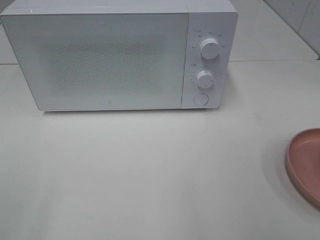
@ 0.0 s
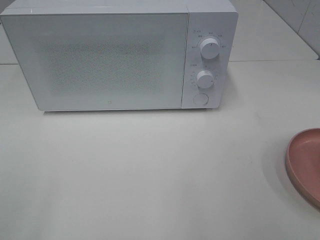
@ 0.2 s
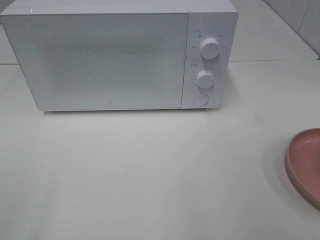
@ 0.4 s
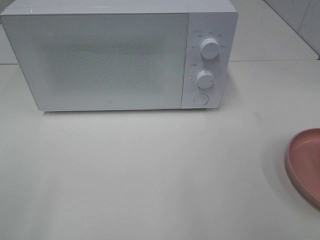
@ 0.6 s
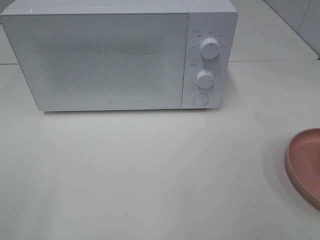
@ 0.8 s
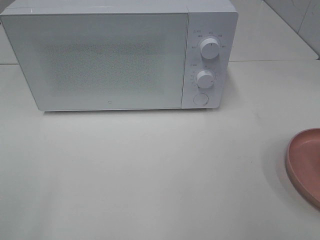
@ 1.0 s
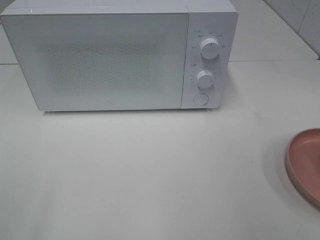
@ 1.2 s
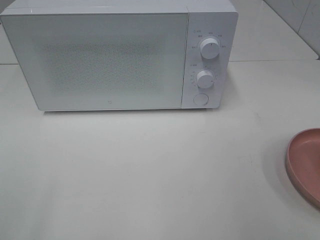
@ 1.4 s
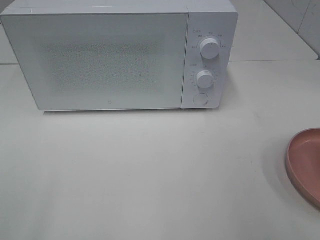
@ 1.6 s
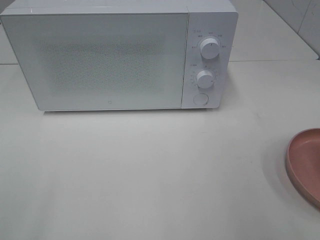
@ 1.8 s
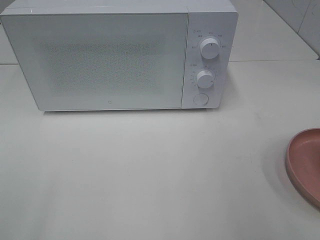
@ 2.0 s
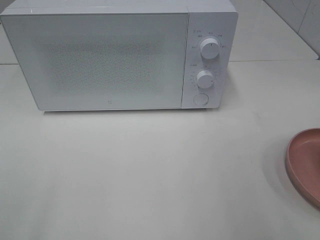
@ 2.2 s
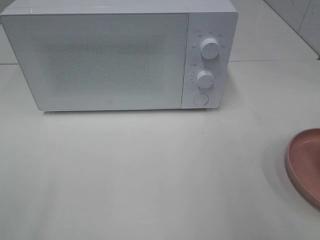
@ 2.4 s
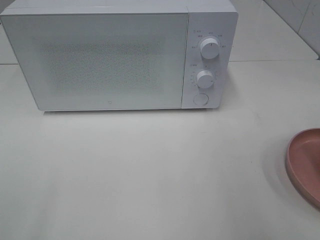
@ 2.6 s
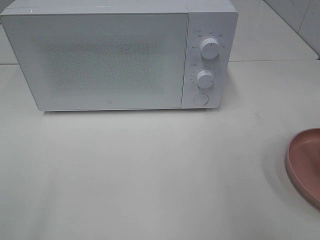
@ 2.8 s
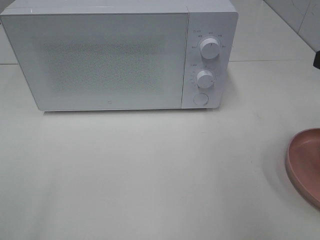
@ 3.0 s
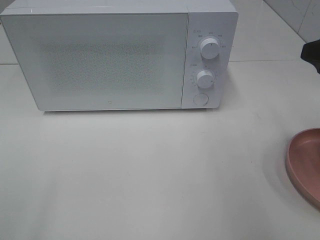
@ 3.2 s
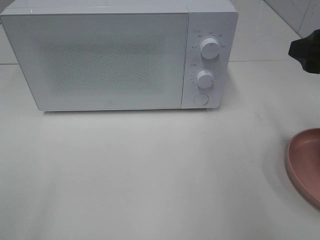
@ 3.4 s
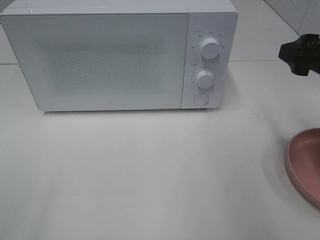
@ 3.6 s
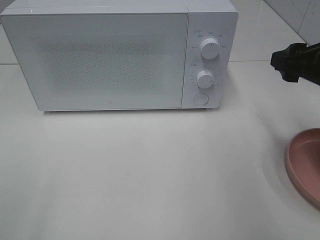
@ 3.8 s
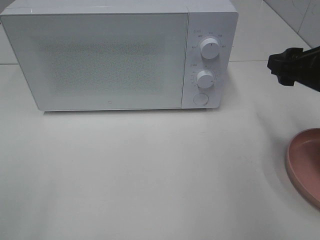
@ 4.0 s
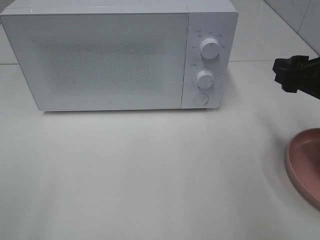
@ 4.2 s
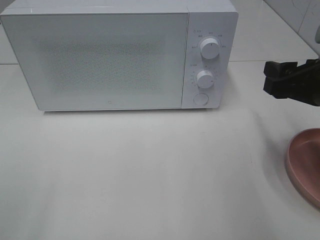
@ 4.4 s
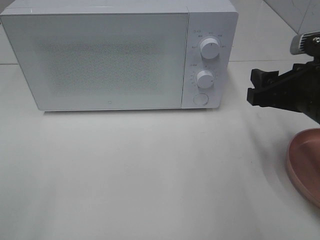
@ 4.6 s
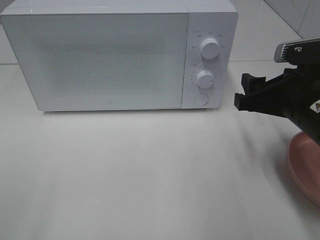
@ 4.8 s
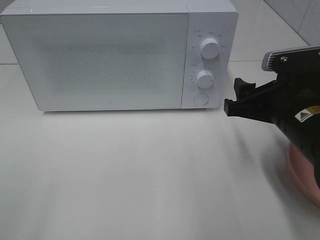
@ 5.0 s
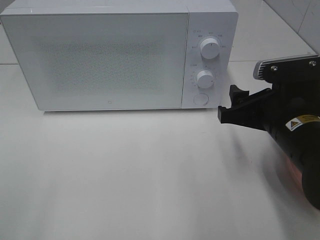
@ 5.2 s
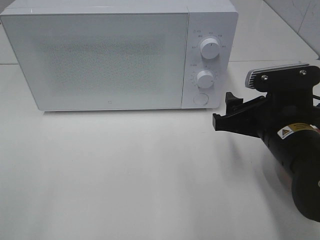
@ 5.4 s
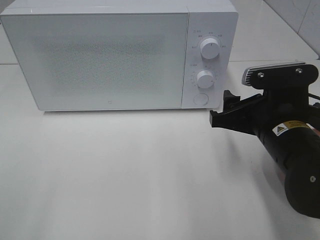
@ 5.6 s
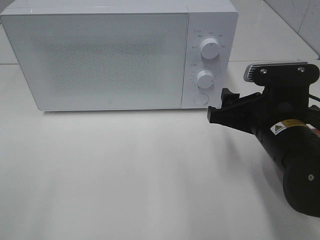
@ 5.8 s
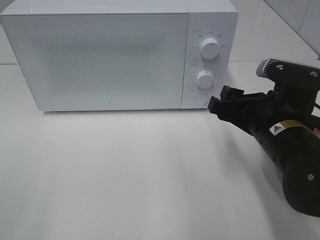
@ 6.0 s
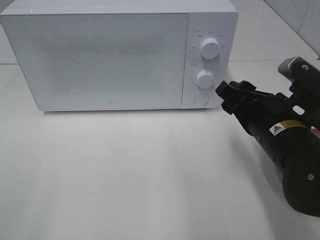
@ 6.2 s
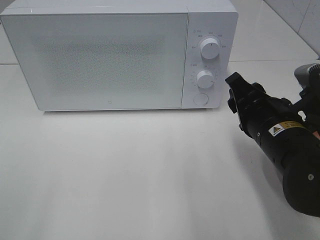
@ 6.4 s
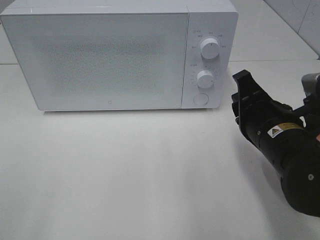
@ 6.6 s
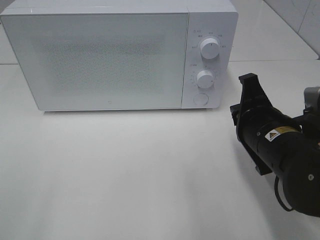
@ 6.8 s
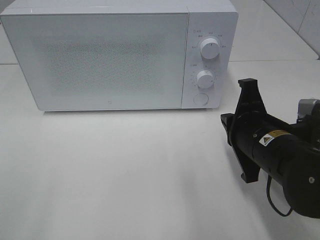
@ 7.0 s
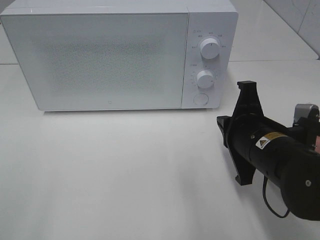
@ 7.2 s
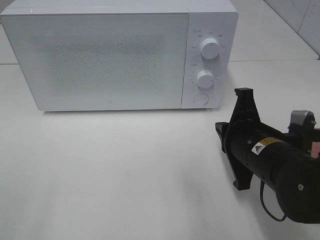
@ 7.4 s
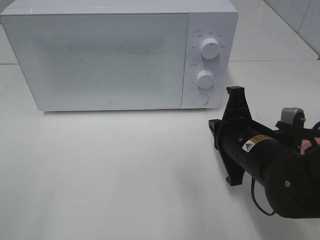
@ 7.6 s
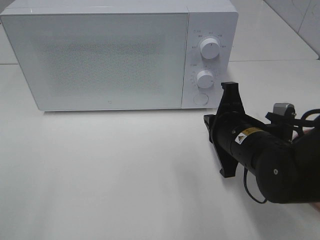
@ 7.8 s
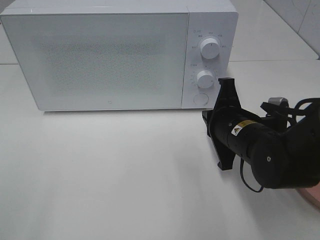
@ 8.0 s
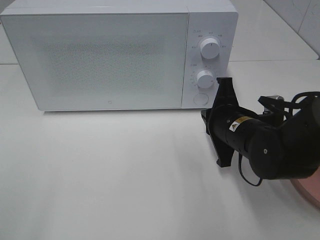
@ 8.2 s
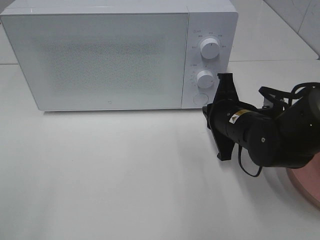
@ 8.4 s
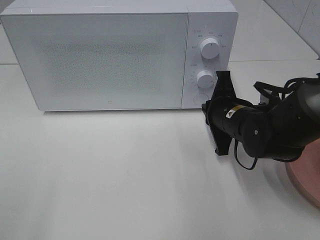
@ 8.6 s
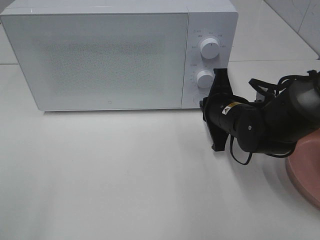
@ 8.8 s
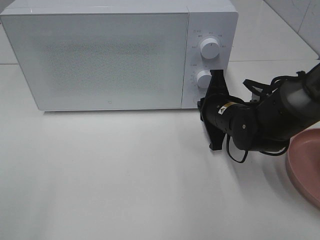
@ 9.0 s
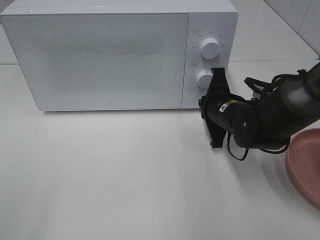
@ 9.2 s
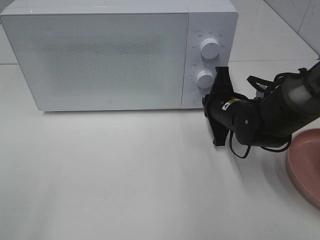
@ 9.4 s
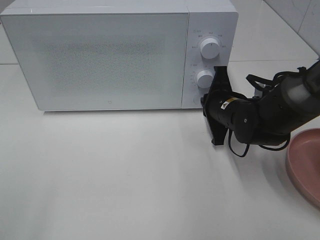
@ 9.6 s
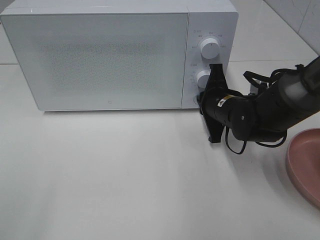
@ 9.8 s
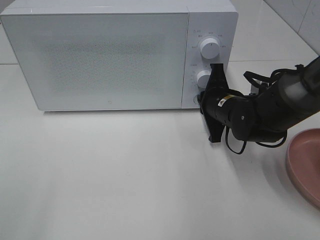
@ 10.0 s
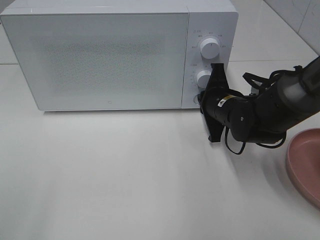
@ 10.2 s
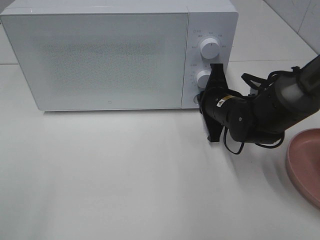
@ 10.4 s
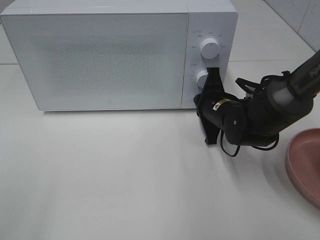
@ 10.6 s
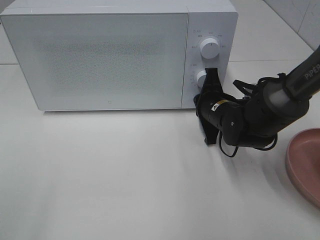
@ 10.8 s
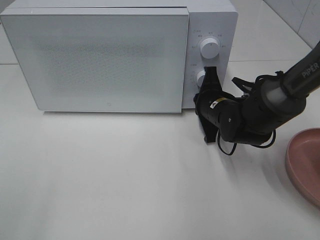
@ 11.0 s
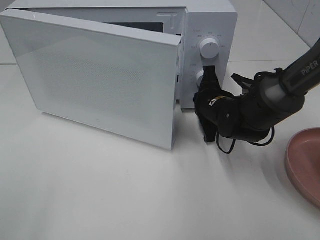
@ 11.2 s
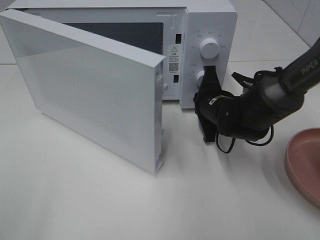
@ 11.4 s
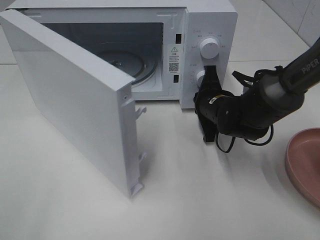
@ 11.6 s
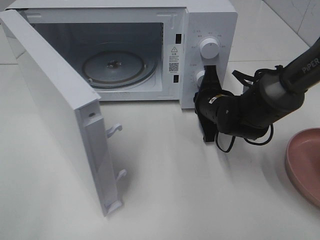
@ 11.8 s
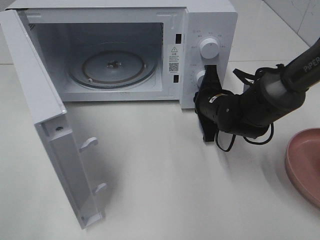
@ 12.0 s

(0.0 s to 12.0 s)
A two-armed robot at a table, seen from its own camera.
Task of the whole recording: Heat the burger.
3.0 s - 4.4 s: The right gripper is displaced downward by about 10 cm.
4.4 s - 6.0 s: The right gripper moves to the left, about 10 cm.
6.0 s - 7.6 s: The right gripper closes up.
7.6 s - 9.0 s: The right gripper moves forward, roughly 10 cm.
9.0 s - 10.4 s: The grippers move only a little.

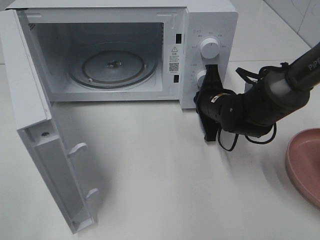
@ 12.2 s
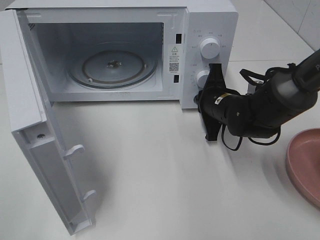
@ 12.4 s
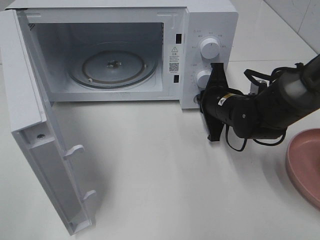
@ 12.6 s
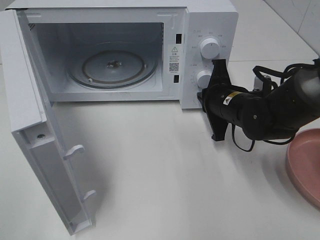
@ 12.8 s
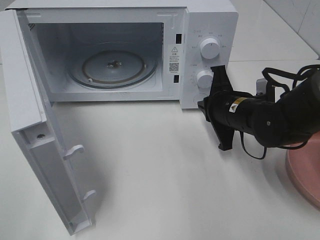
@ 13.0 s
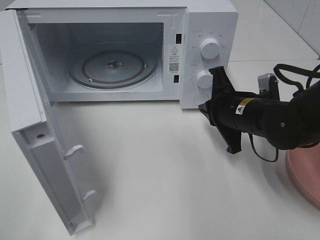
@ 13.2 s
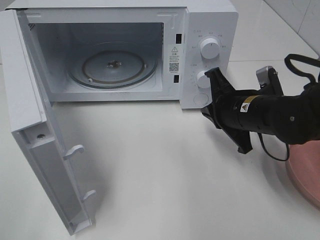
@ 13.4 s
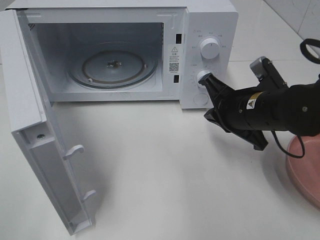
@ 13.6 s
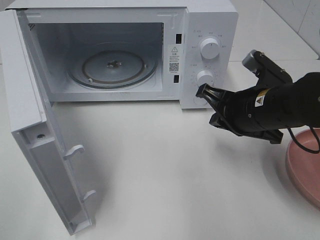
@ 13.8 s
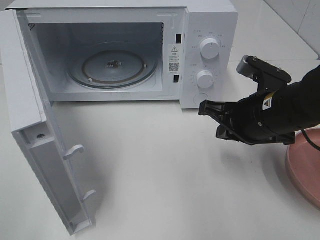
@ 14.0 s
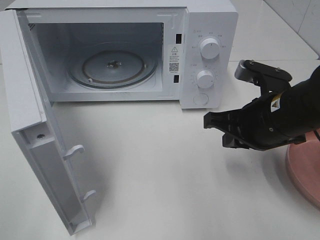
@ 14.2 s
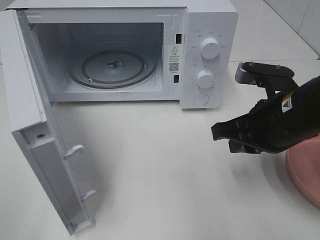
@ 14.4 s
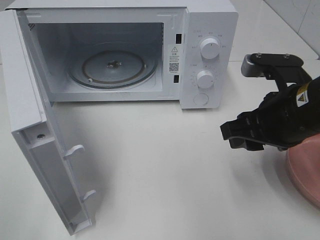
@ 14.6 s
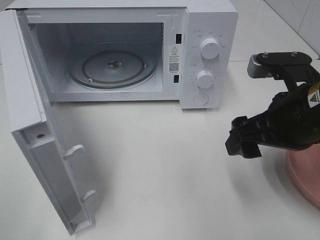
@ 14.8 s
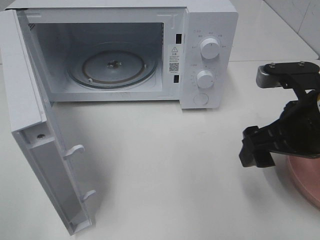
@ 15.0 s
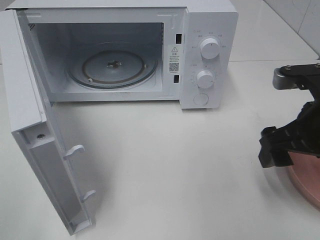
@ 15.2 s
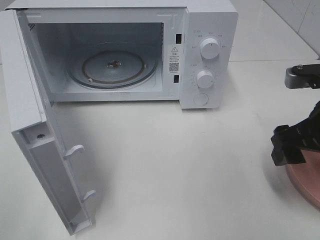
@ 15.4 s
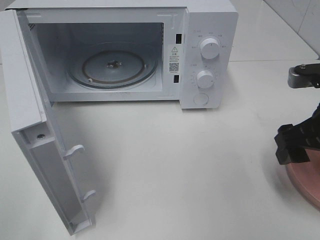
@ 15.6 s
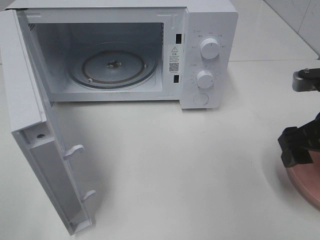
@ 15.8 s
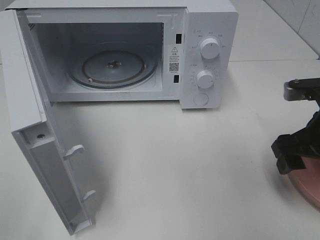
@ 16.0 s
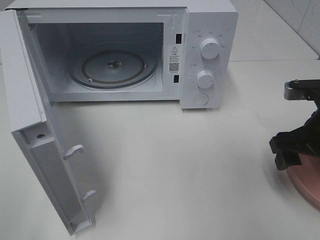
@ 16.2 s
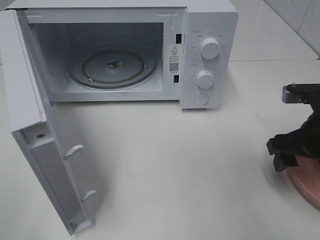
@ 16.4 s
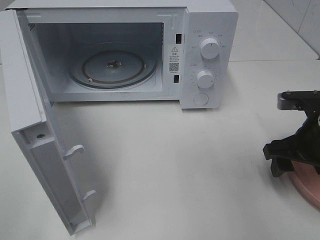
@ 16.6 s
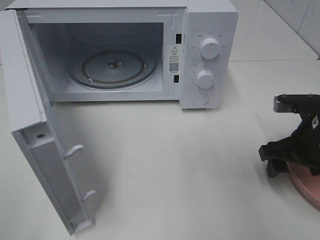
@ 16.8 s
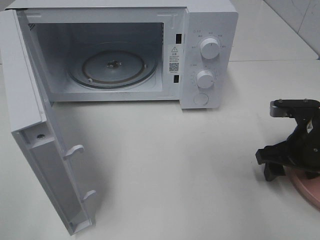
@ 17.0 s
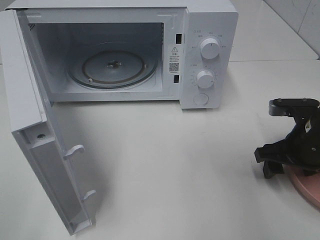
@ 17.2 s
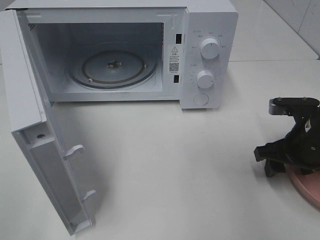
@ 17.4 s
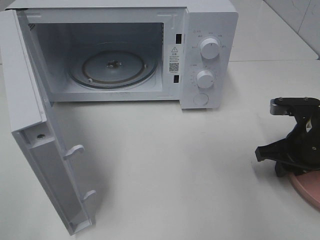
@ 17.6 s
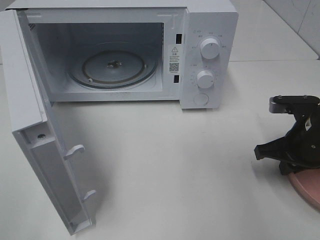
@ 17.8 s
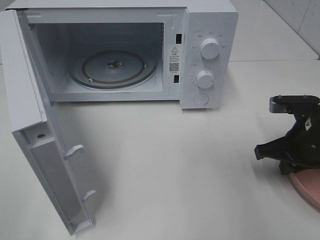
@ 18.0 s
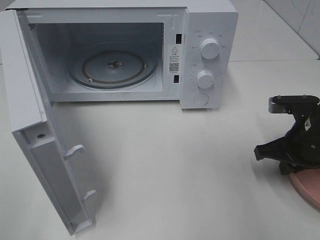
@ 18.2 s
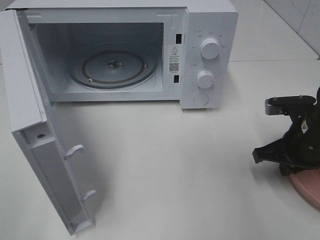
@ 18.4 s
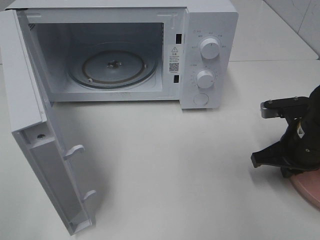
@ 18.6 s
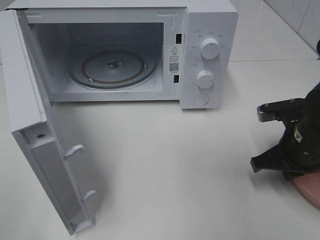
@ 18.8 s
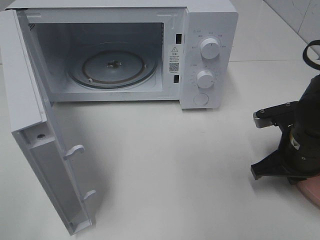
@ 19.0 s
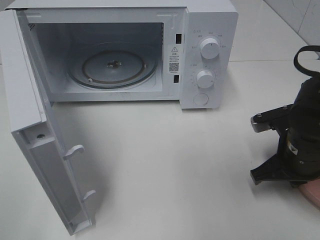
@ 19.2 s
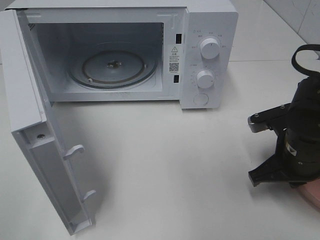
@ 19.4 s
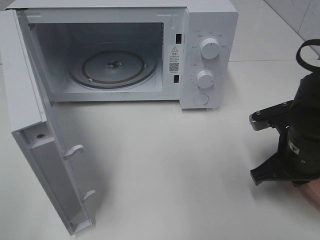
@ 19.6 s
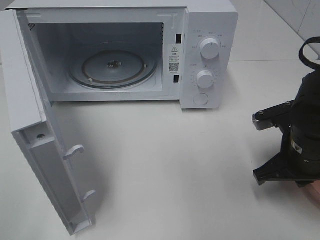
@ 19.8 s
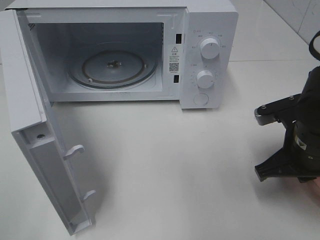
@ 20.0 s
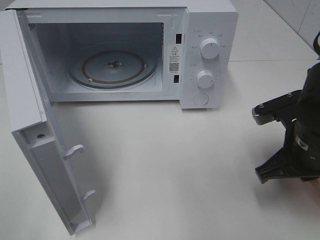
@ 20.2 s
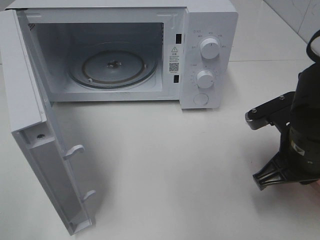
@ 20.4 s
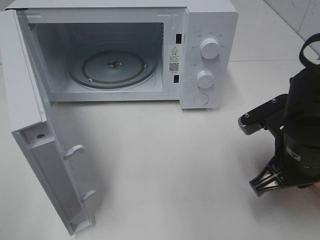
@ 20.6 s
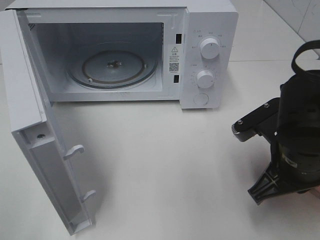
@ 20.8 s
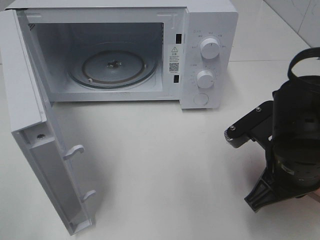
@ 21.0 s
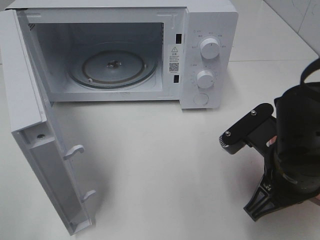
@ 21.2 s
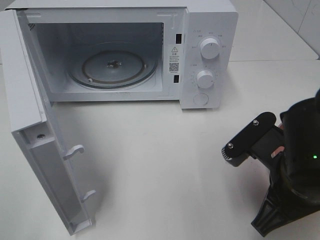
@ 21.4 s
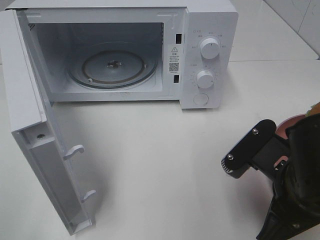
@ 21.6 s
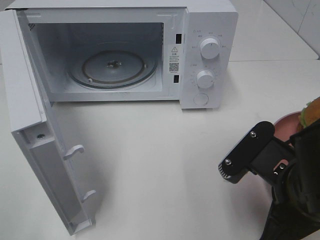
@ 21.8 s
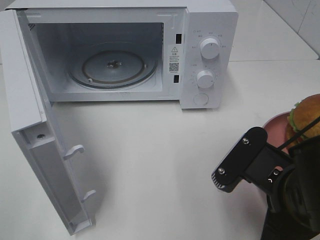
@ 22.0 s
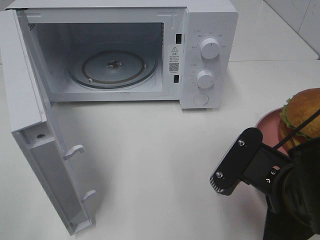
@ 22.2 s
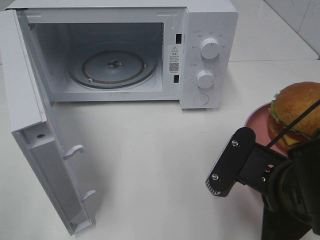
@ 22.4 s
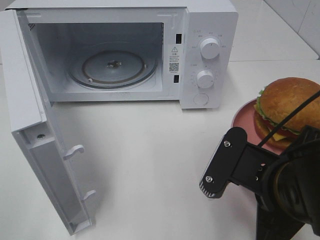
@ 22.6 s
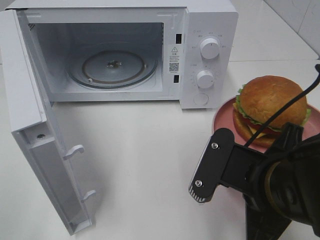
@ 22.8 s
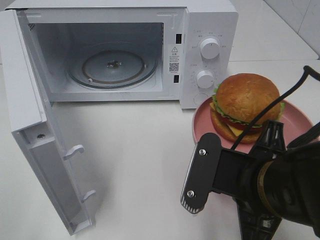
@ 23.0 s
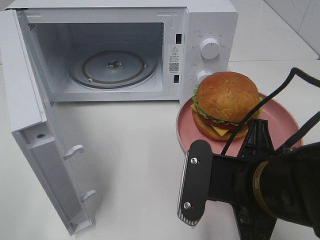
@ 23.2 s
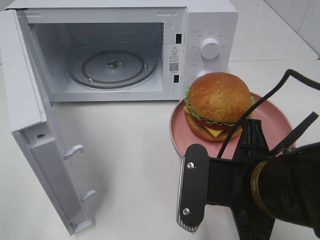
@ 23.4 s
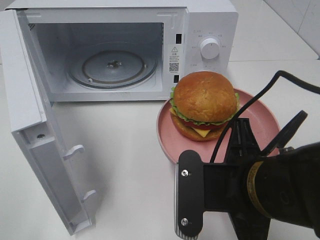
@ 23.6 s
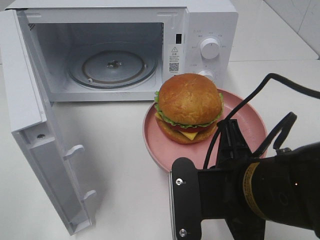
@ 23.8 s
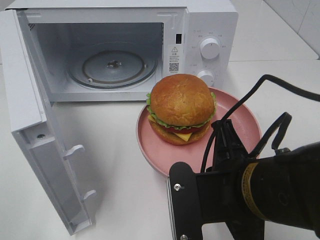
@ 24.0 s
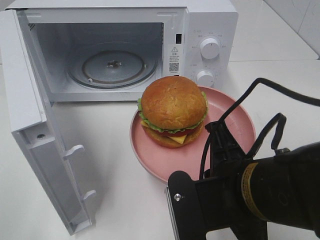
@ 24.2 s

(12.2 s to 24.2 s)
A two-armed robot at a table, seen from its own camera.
Task of the whole recording: Heat the burger.
Step, 13.0 s - 19.2 s: Right hand: grab the plate with the hamburger.
12.2 s - 13.8 s: The right gripper is displaced backward and upward by some 10 cm.
13.8 s - 15.2 s: The right gripper heads to the right and backward, covering about 10 cm, and opens.
15.2 s - 16.6 s: The right gripper is displaced downward by roughly 5 cm.
16.6 s - 18.2 s: The right gripper closes its fingers.
18.2 s - 19.8 s: The right gripper changes place by some 5 cm.
19.8 s - 21.2 s: The right gripper travels backward and to the left by approximately 10 cm.
21.2 s - 22.6 s: The right gripper ends up roughly 5 cm from where it was.
